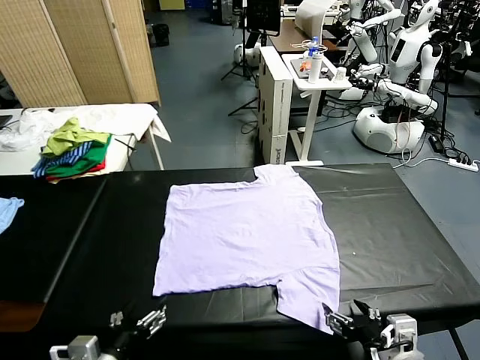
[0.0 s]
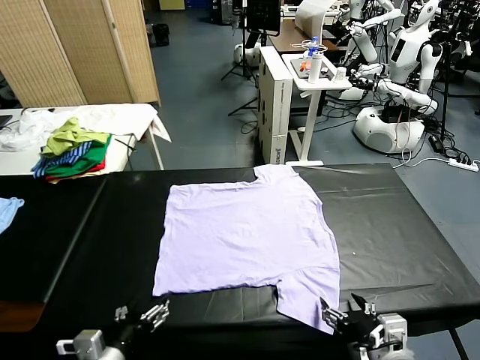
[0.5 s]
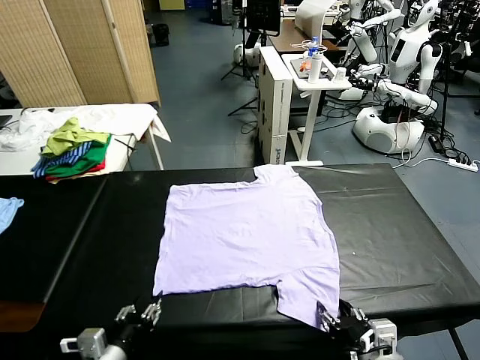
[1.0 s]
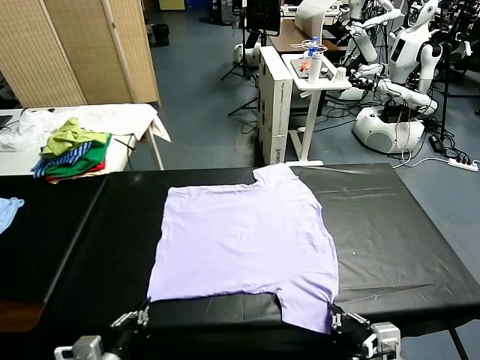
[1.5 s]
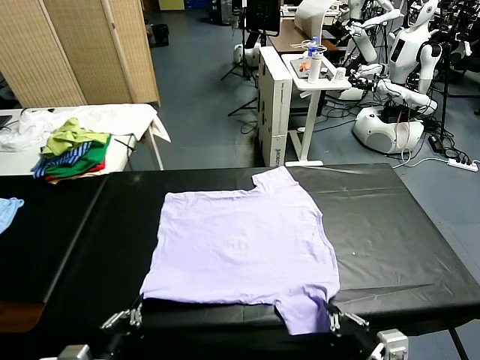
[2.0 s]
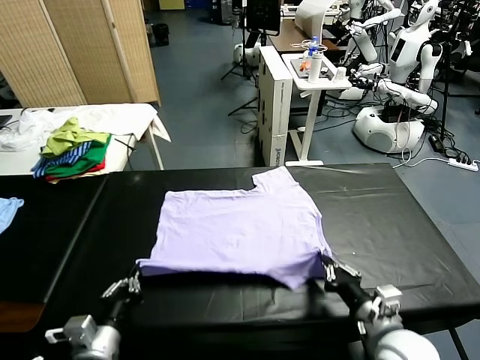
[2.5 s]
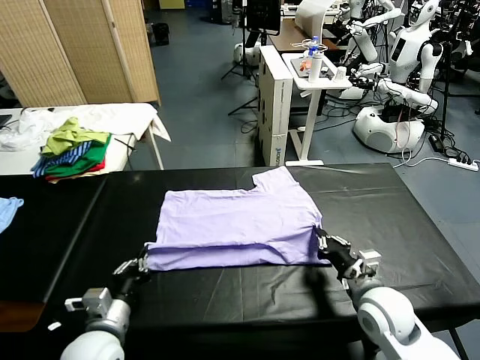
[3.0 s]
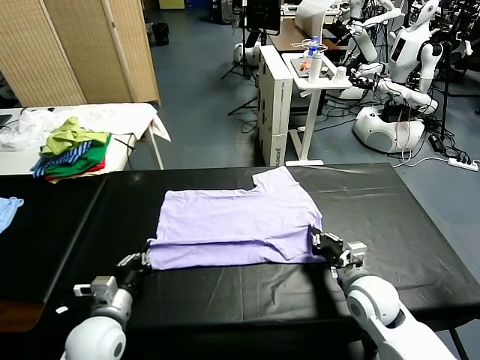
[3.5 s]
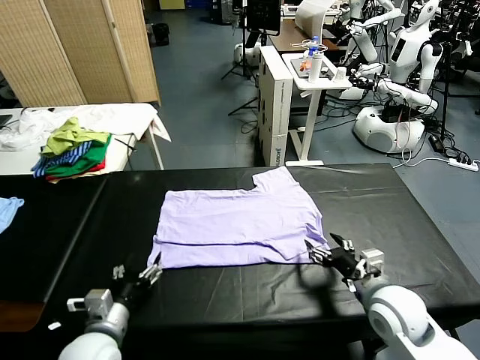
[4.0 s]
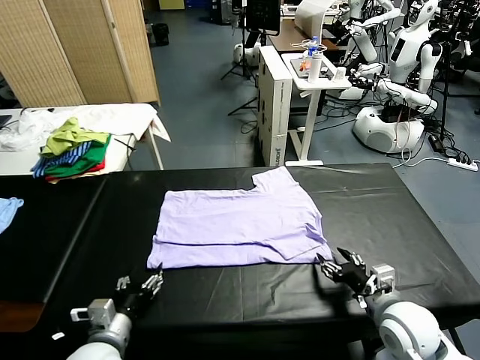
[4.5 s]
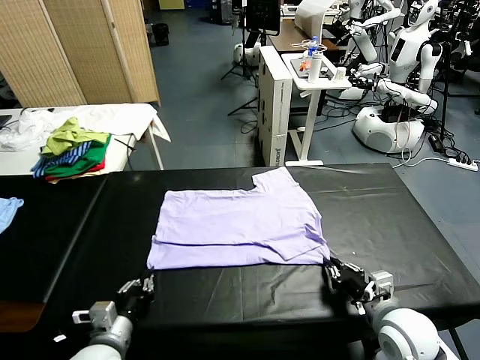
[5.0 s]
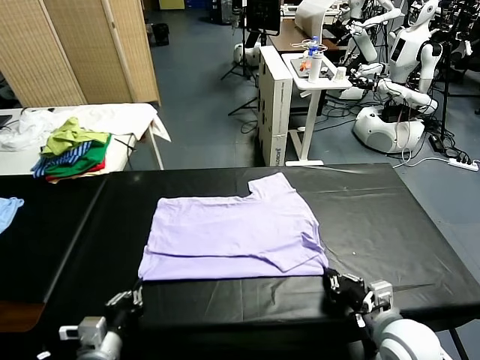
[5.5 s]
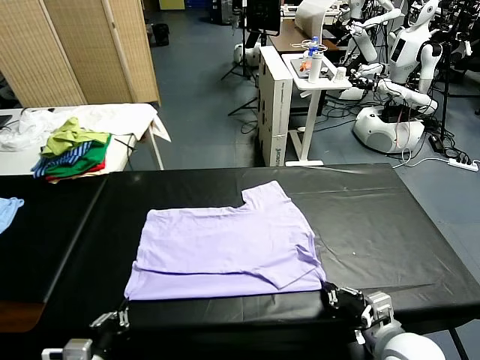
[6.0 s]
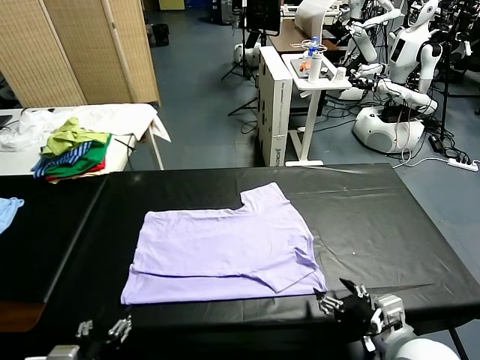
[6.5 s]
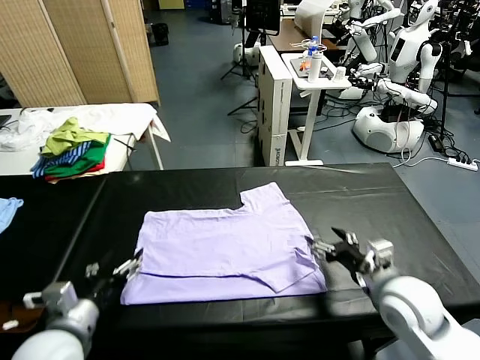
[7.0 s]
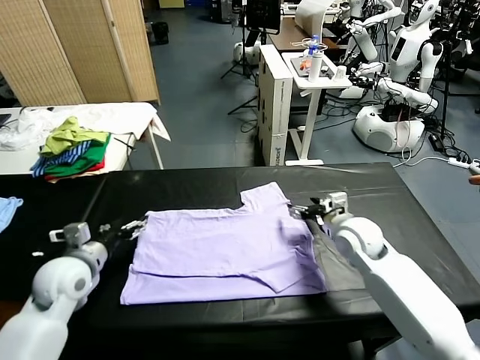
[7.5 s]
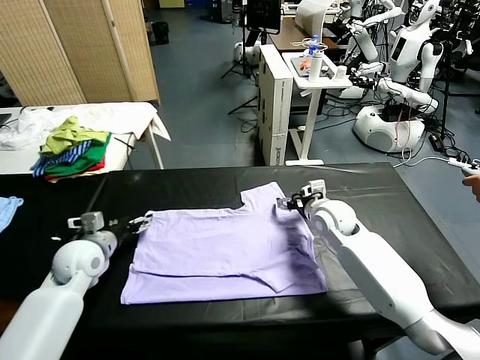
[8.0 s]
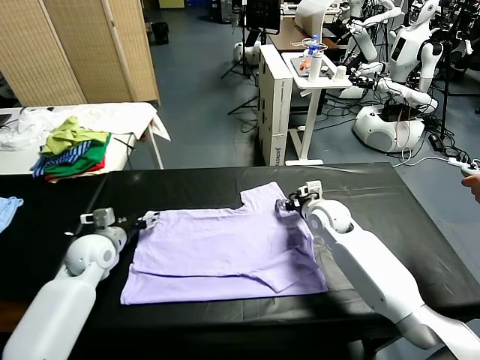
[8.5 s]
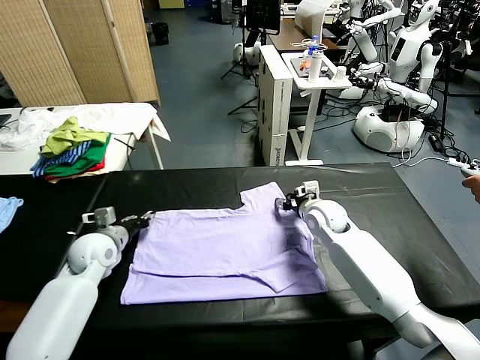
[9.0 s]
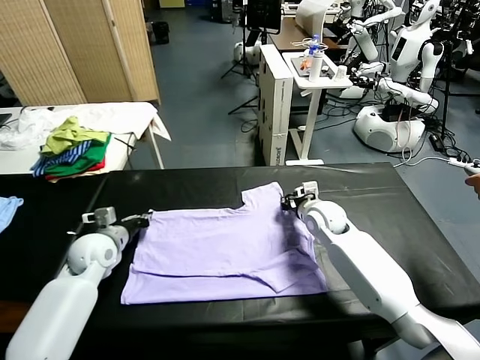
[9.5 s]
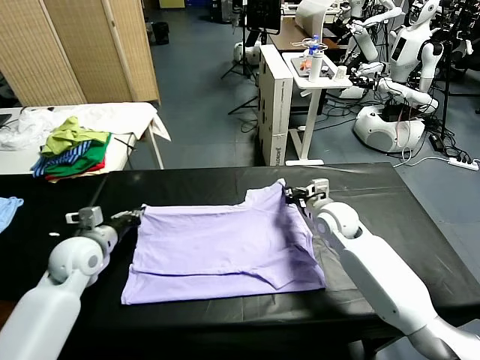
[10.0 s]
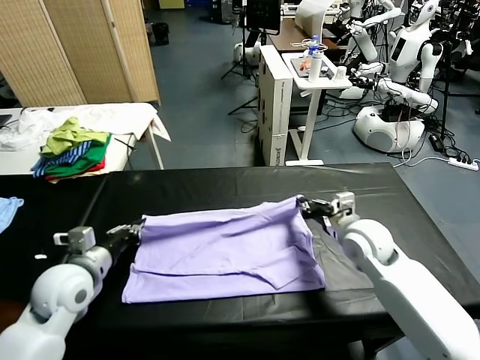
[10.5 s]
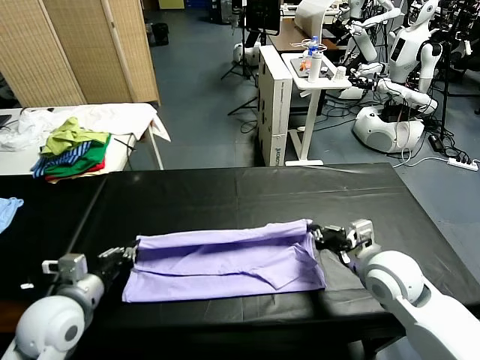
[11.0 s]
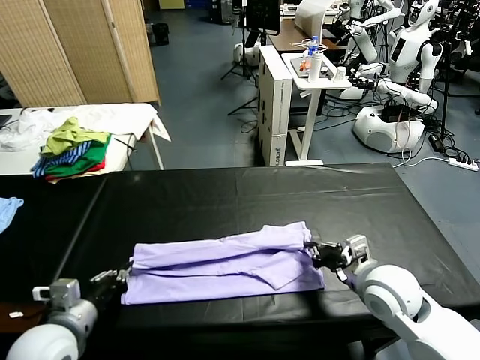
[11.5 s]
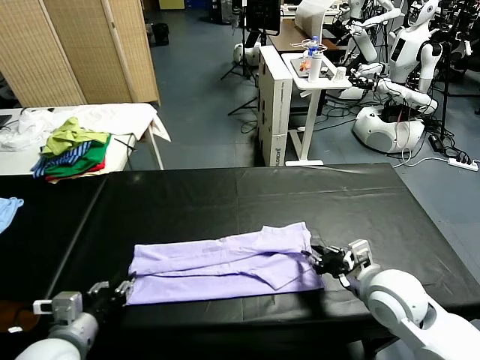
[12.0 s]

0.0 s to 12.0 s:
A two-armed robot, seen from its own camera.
Task of the whole recording: fold and organize the clothes.
Step, 0.0 to 1.0 s: use both grippers simultaneously to clamp the lower edge of the clothing fabric.
Step, 1.5 to 3.5 s: use both grippers to drag the lower edge of the fabric forward and fold it over the upper edge.
Step, 4.0 to 6.0 s: Drag the clothes downward with both gripper.
Step, 6.5 to 9.5 s: use both grippers simultaneously to clamp the upper edge of the clothing fabric.
2.0 to 4.0 s: Both grippers travel together forward, some 10 cm. The left gripper opens up. Meanwhile the right gripper opens up.
4.0 to 6.0 s: Both grippers move backward, approximately 10 cm. The right gripper closes up. Meanwhile the left gripper closes.
6.0 to 8.0 s: The grippers both shift forward by about 30 cm. The right gripper opens its fingers; the left gripper opens up.
8.0 to 10.0 s: The left gripper closes its fingers; the right gripper heads backward, covering approximately 5 cm, and closes its fingers.
10.0 to 12.0 s: Both grippers move backward, about 20 cm. The left gripper opens up. The right gripper opens.

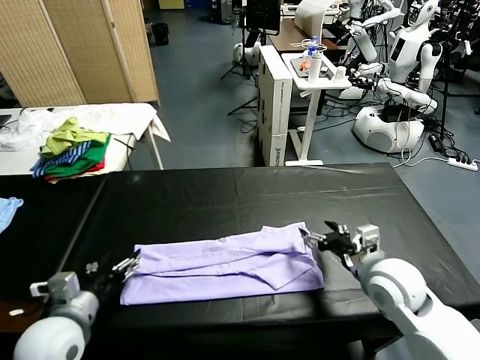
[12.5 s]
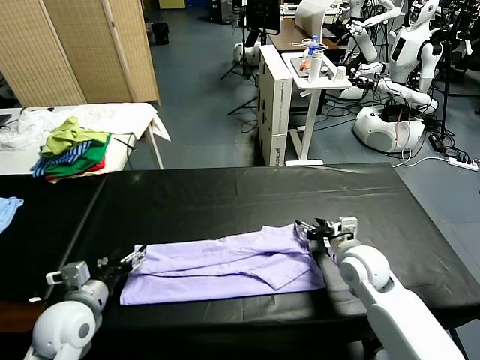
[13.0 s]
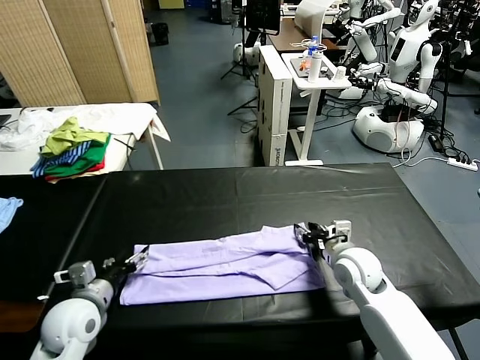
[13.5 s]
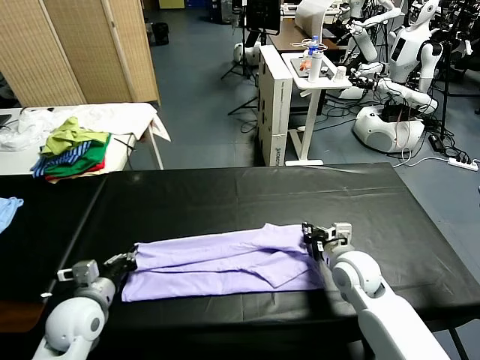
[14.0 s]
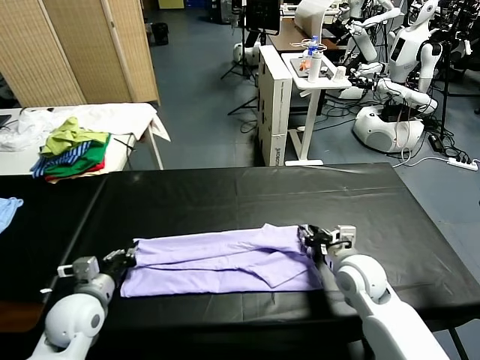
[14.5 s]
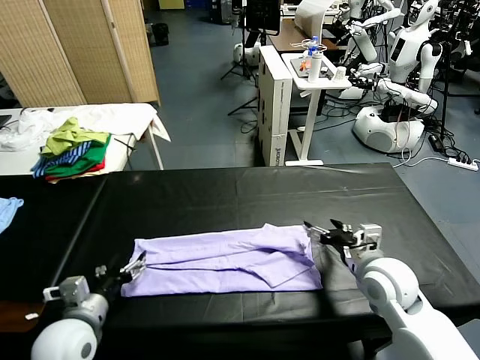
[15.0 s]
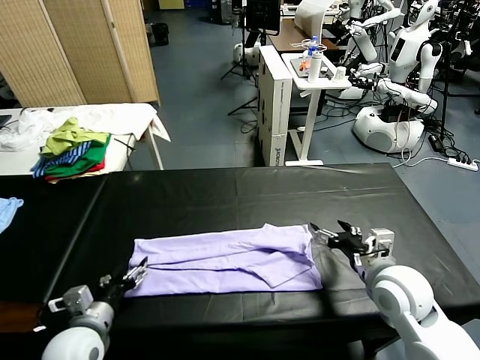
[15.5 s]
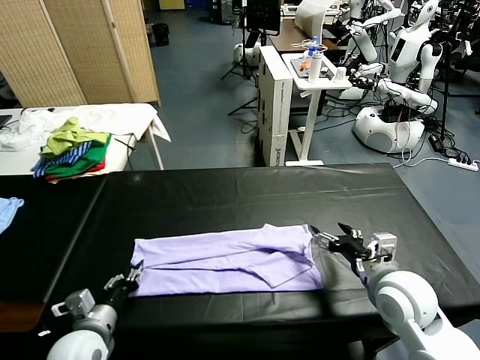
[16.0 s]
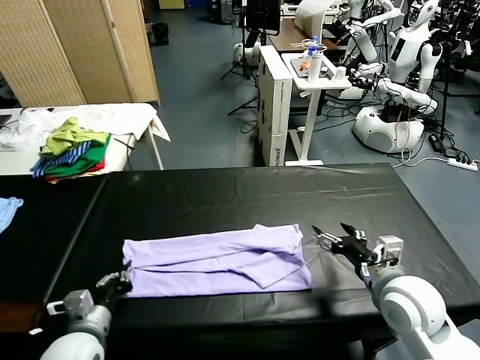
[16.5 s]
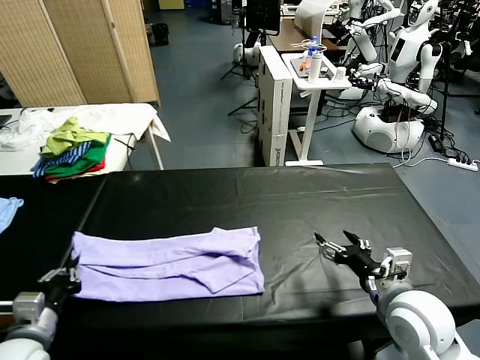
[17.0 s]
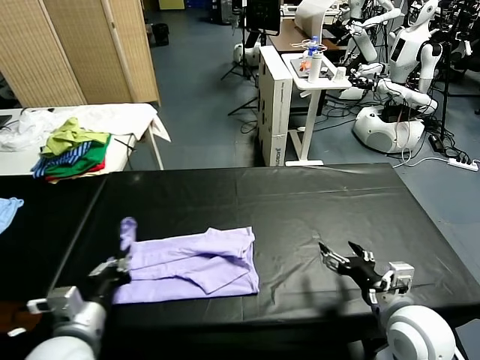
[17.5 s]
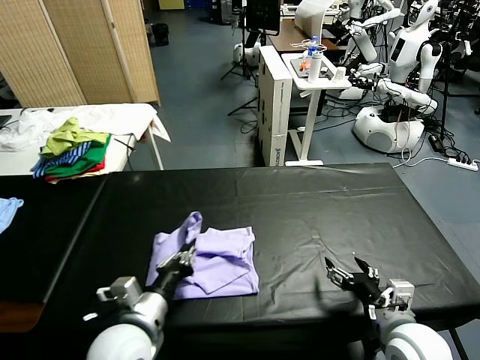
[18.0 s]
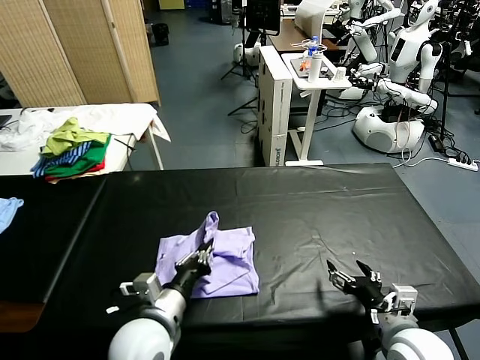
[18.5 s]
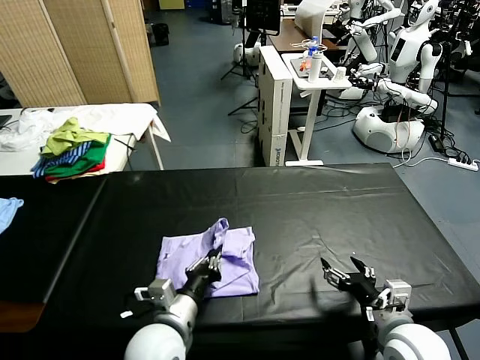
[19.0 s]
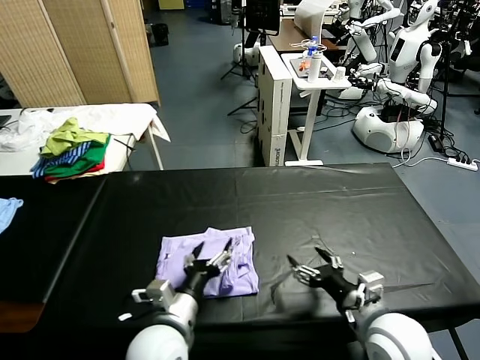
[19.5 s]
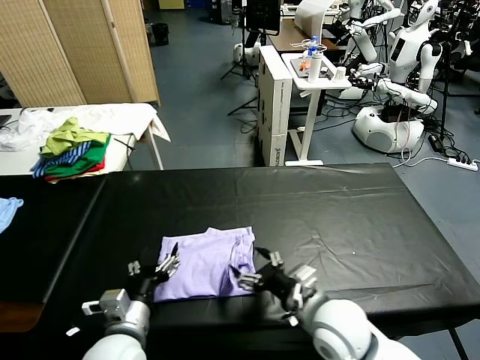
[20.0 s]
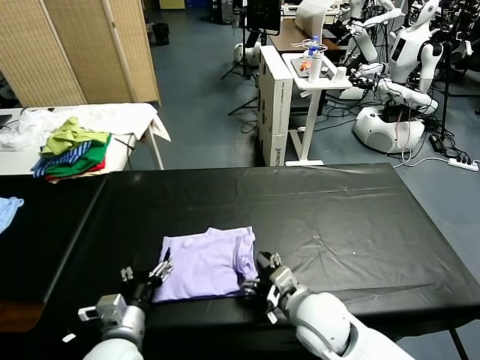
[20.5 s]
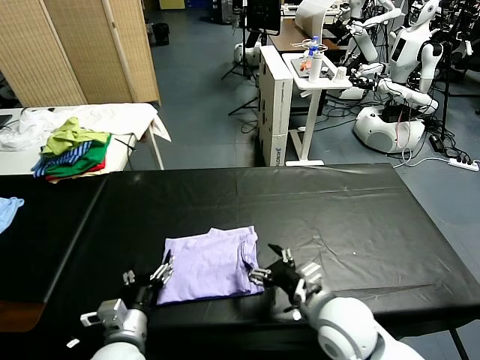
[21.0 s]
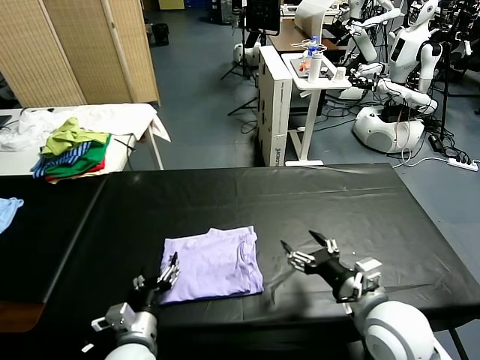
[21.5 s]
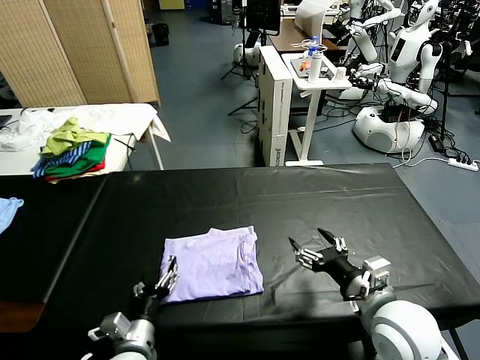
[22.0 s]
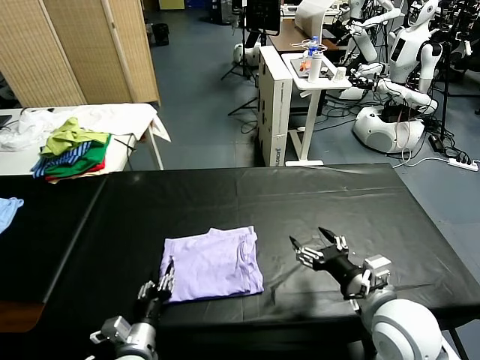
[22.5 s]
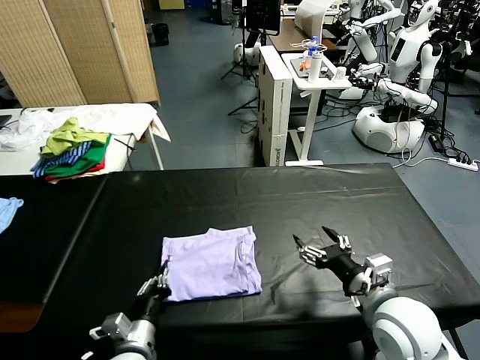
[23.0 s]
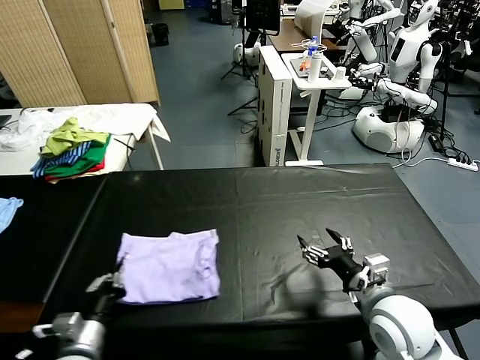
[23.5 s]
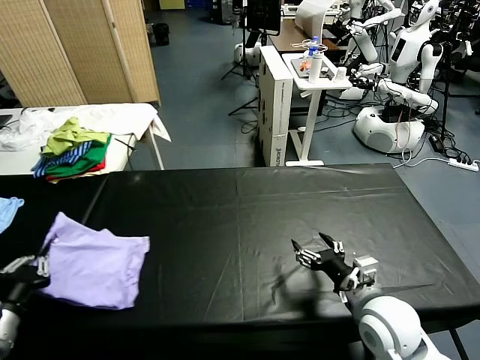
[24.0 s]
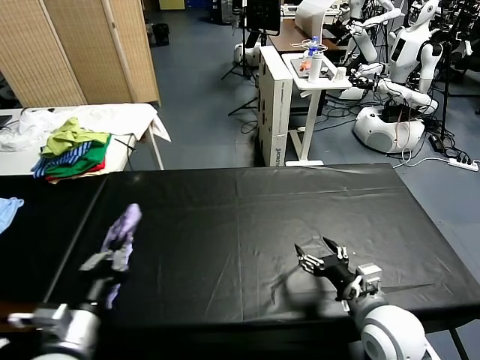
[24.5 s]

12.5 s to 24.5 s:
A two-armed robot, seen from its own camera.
Task of the whole recording: fold and organize the clothes.
Step, 12.5 to 16.0 s: use the left gripper to clamp the left edge of the fabric.
Step, 16.5 to 19.0 s: use the left gripper to drag the left edge of the fabric to the left and folds it over the right edge.
12.5 to 14.5 s: The right gripper closes, then reopens. Meanwhile the left gripper moves about 5 cm, and closes.
14.5 to 16.5 s: The right gripper moves backward and upward, approximately 10 cm, while the left gripper heads backward, covering about 5 cm, and opens, then closes again.
16.5 to 18.5 s: The left gripper travels to the right by about 15 cm. The right gripper is displaced backward and downward by roughly 10 cm.
18.5 to 20.5 s: The right gripper travels to the left and forward by some 15 cm, while the left gripper travels to the left by roughly 5 cm, and opens.
20.5 to 22.5 s: The right gripper moves to the right and upward, approximately 15 cm, while the left gripper is displaced downward by about 5 cm, and closes.
22.5 to 24.5 s: The left gripper is displaced upward by approximately 15 cm, moves some 20 cm to the left and comes back, and closes.

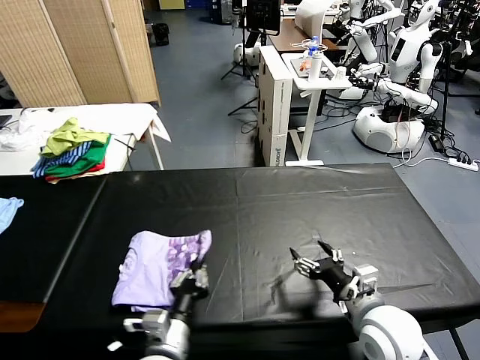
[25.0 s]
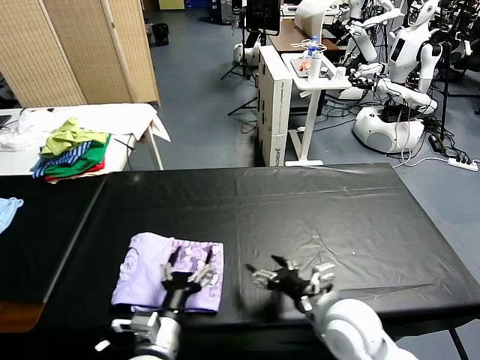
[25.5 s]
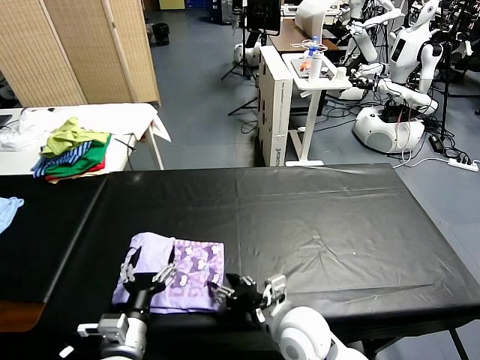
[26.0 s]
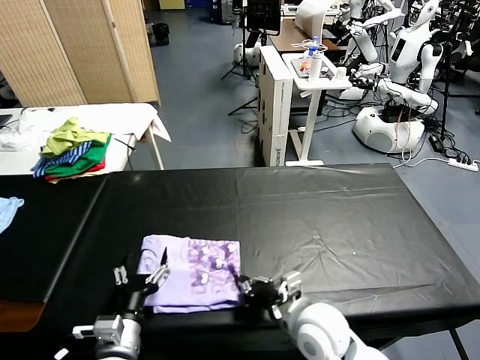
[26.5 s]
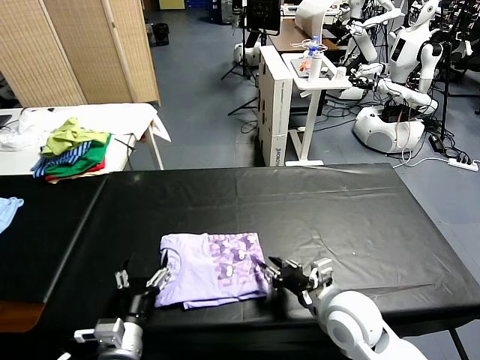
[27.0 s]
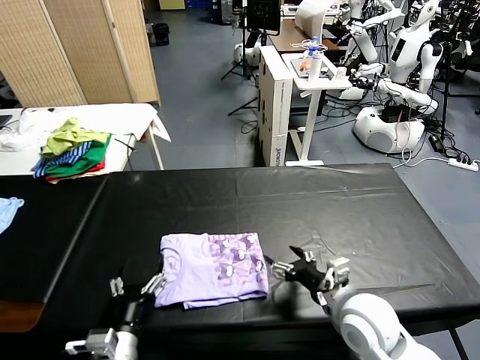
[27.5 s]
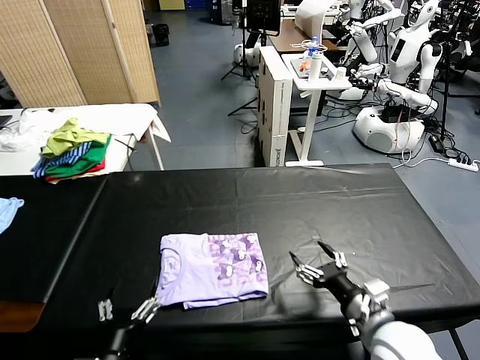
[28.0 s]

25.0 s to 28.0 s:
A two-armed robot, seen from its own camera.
Task of the whole recording: fold and organize the clothes.
Step, 25.5 to 27.0 s: Drag the clothes to the center of the table.
25.0 to 26.5 s: The left gripper moves to the left, roughly 5 cm, and opens its fingers, while the right gripper shifts approximately 10 cm to the left, and closes its fingers.
26.5 to 28.0 s: The left gripper goes approximately 5 cm backward. The right gripper heads to the right, covering approximately 10 cm, and opens.
